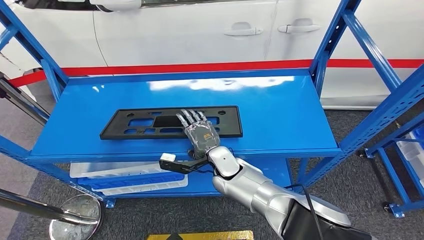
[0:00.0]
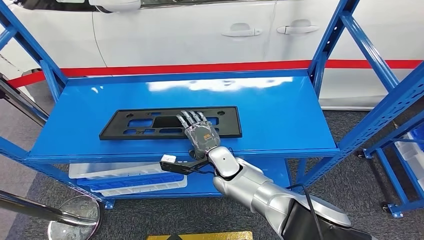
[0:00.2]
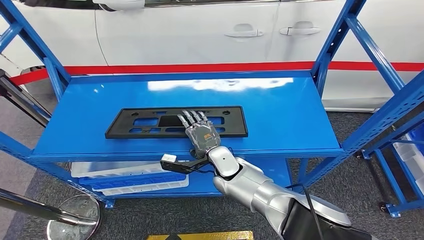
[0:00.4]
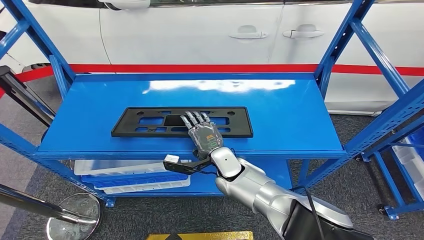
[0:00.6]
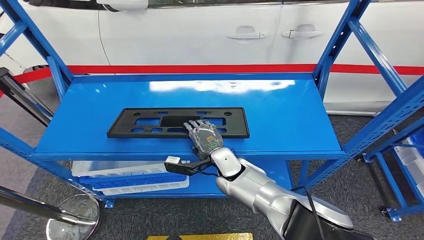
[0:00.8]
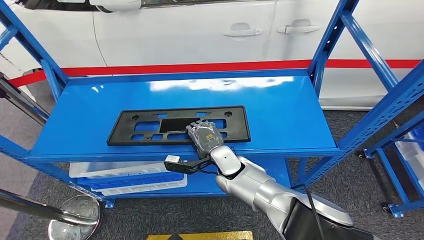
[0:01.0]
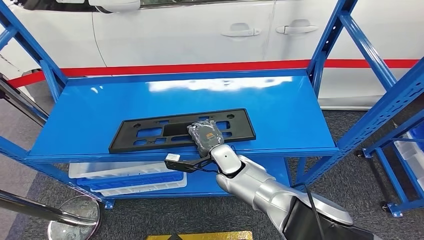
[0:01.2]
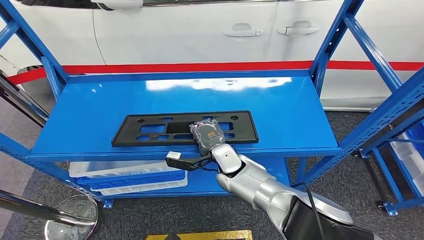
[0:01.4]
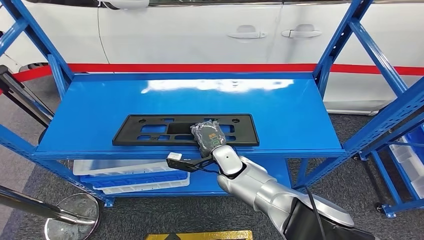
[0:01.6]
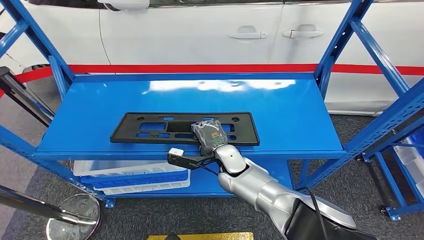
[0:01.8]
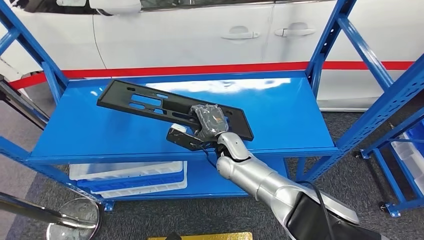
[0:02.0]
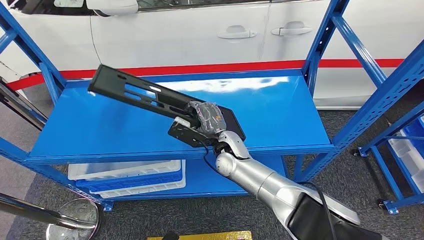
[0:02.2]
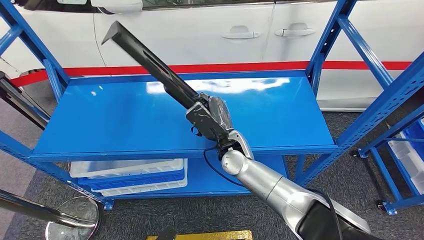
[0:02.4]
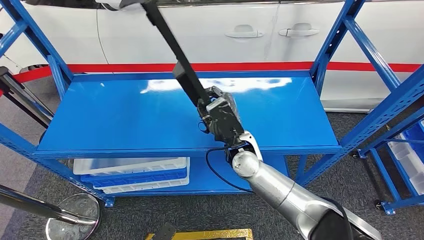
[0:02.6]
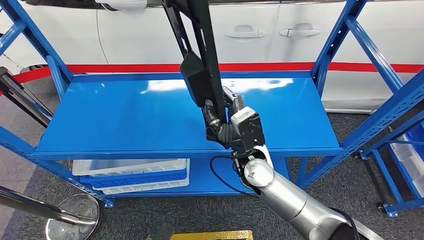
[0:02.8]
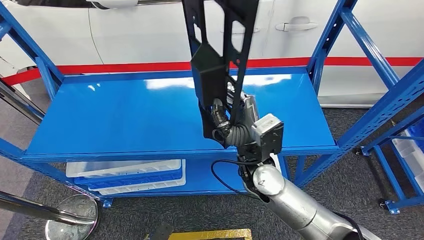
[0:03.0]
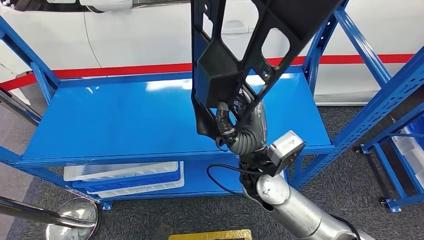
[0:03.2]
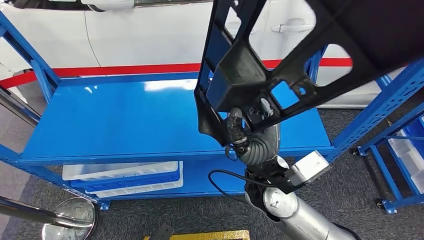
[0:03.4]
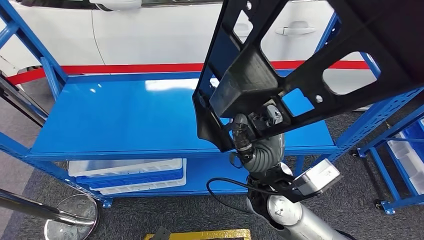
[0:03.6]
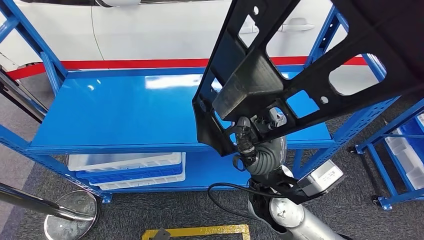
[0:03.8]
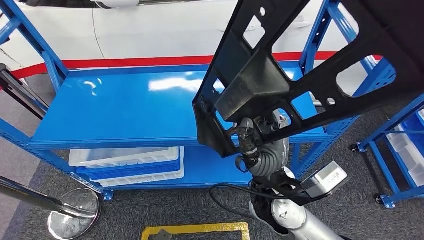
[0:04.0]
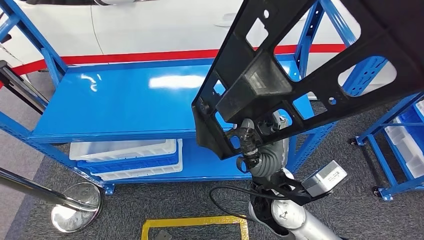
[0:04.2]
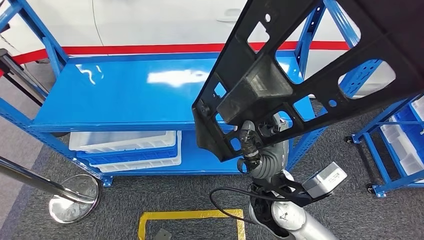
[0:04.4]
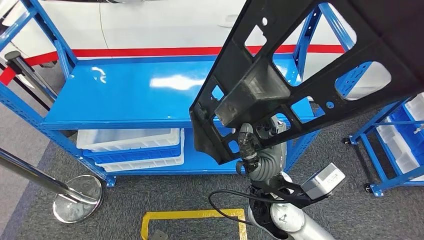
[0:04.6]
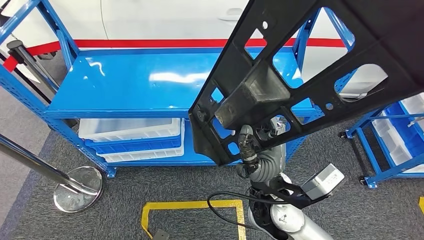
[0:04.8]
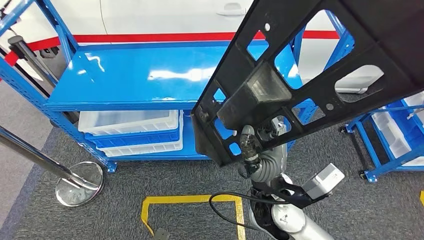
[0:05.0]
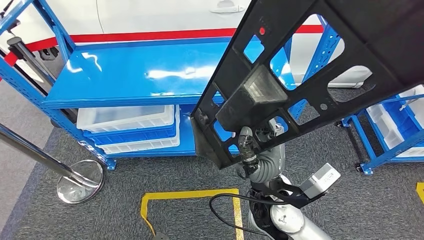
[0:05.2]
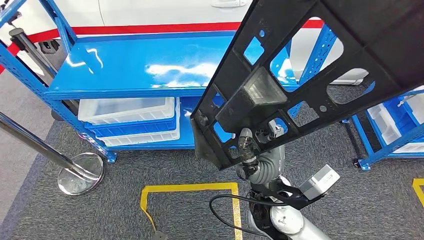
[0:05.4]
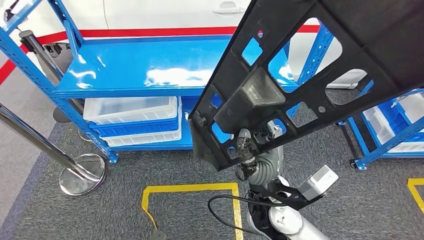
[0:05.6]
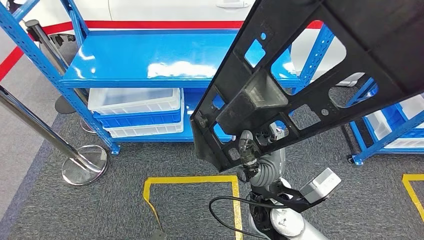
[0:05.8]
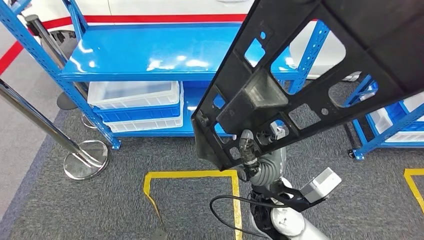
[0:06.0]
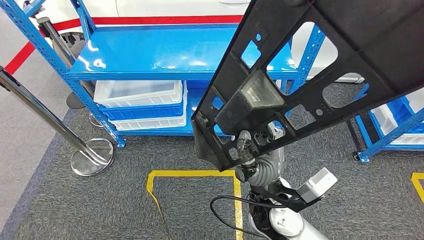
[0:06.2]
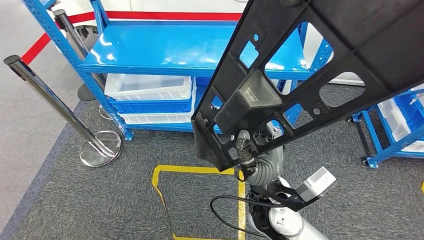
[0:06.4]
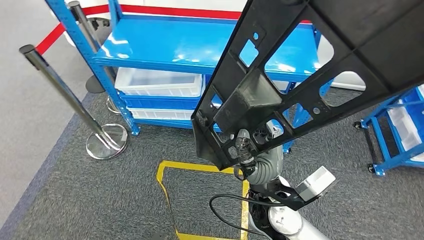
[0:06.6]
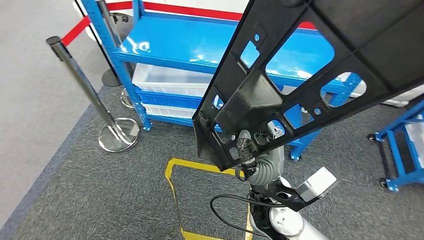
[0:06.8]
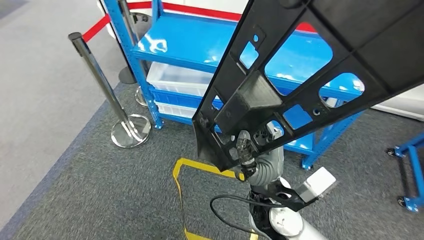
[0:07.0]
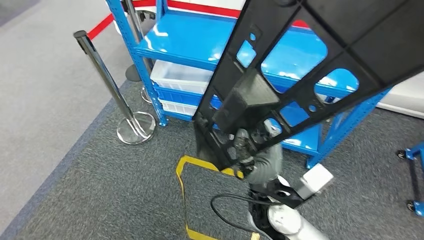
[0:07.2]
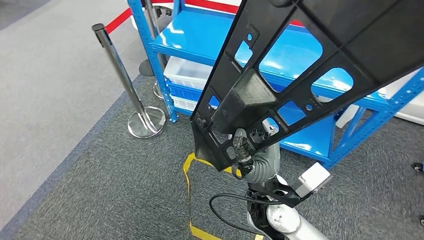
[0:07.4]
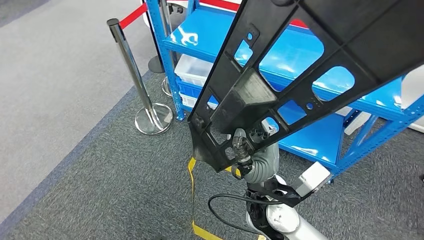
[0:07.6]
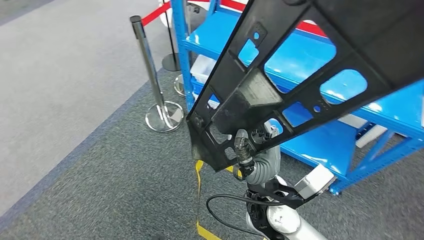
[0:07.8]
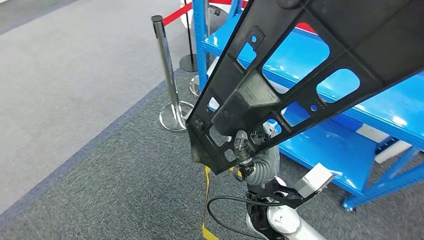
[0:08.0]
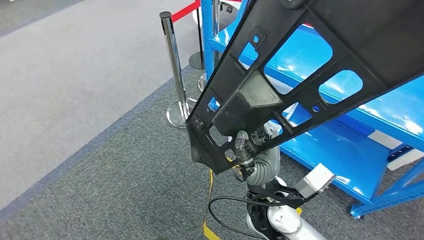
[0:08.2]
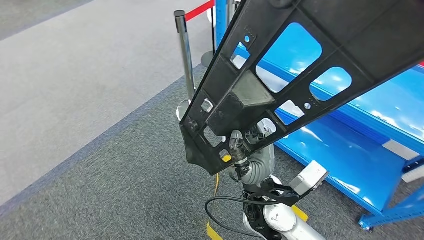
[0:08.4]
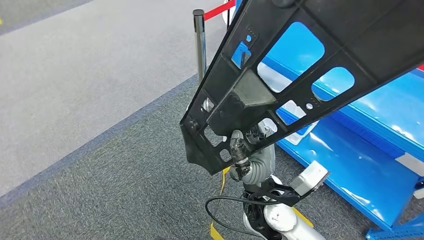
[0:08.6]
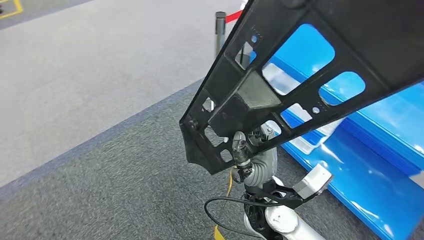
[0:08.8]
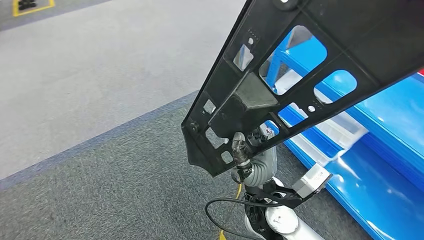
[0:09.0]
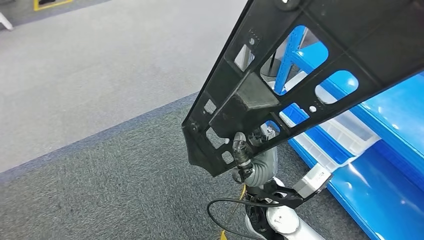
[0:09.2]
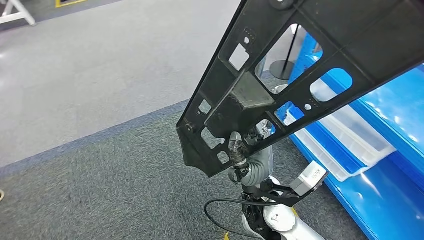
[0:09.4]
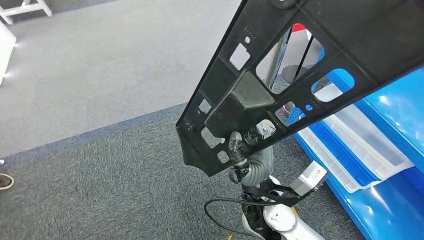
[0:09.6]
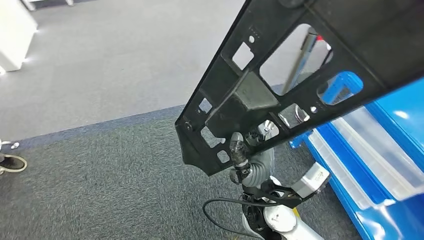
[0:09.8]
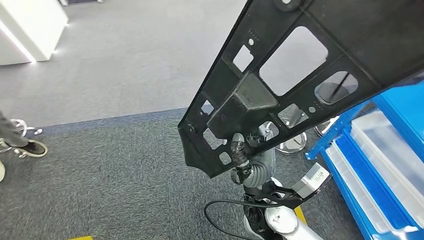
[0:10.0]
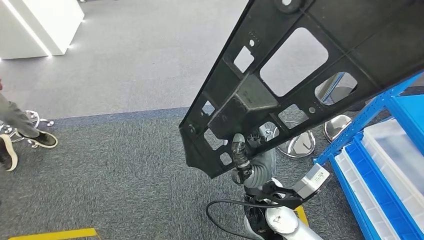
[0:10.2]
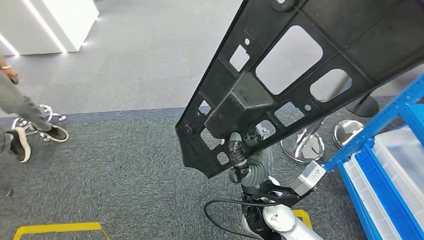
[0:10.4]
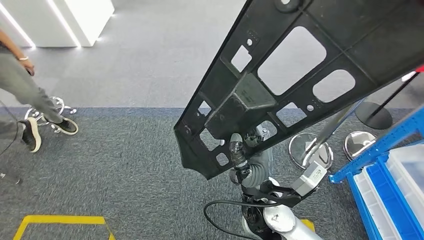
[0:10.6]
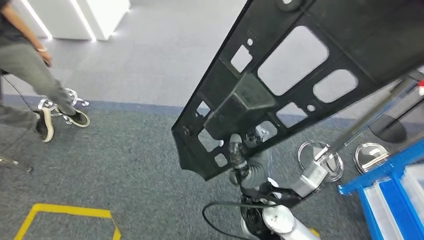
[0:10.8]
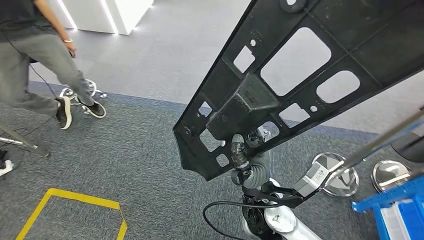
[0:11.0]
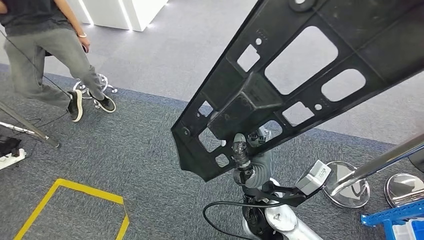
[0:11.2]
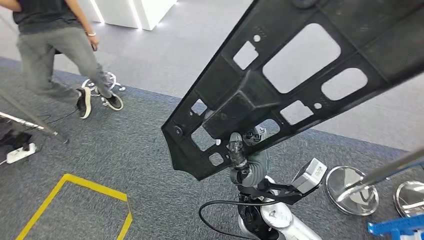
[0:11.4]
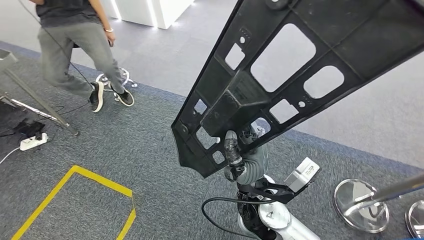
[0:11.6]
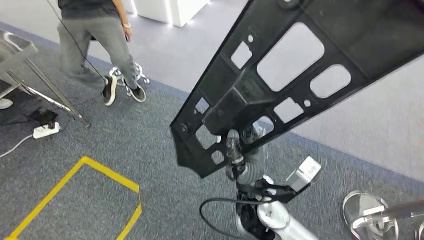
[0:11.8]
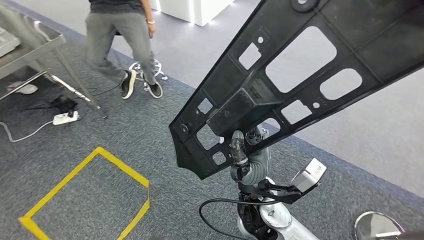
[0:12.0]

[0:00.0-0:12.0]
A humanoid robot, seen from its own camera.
Step, 0:00.0 to 0:04.6: Pick up the large material from the shelf.

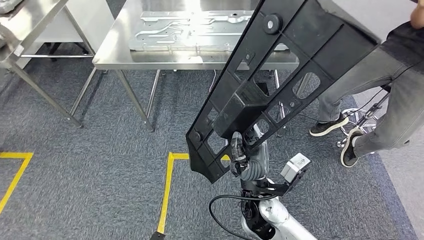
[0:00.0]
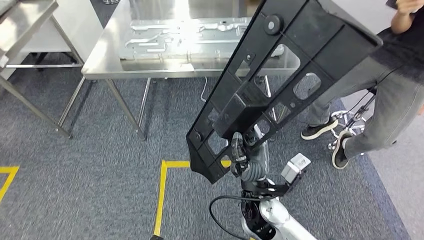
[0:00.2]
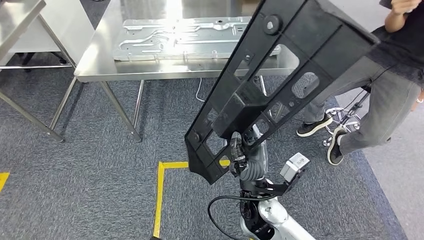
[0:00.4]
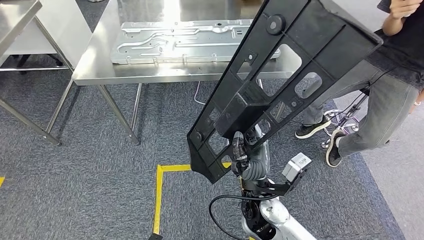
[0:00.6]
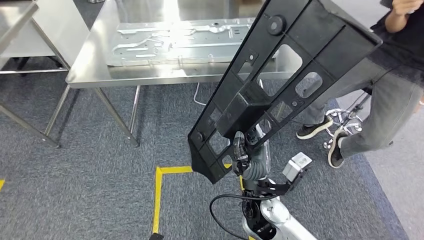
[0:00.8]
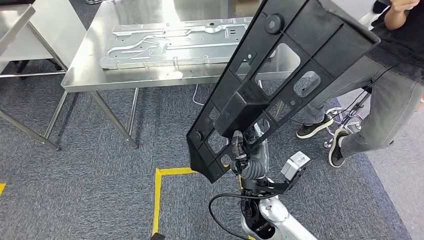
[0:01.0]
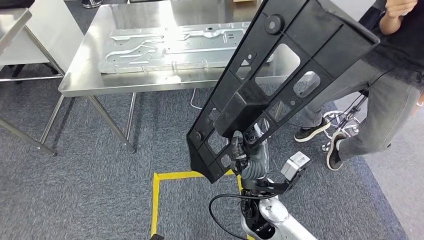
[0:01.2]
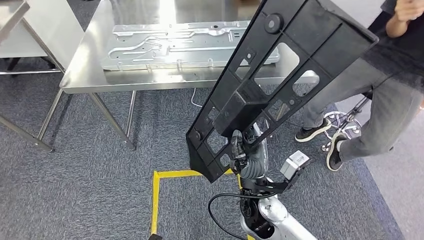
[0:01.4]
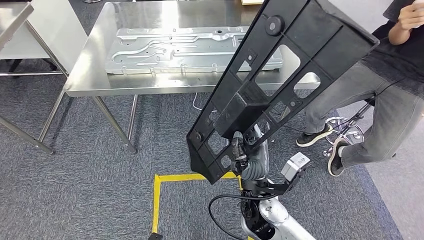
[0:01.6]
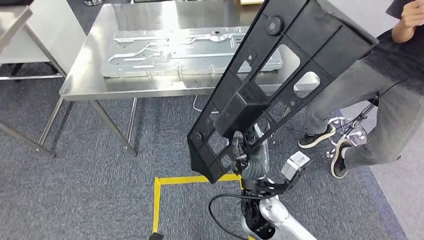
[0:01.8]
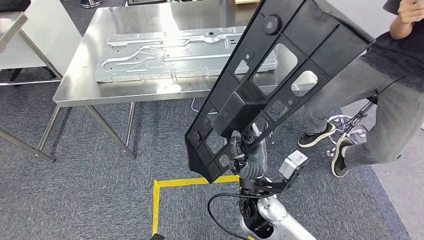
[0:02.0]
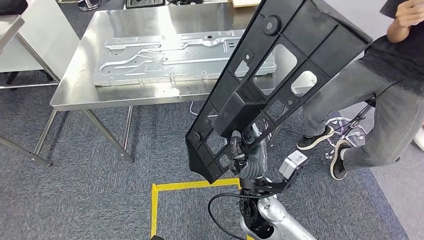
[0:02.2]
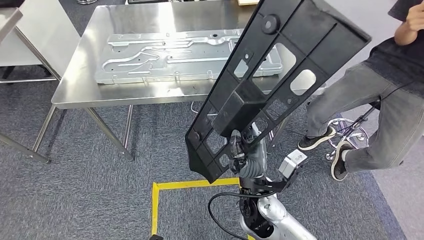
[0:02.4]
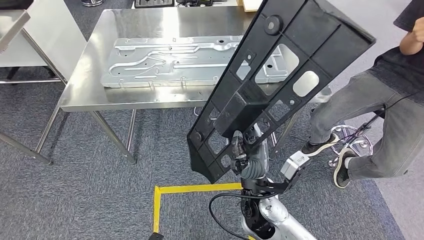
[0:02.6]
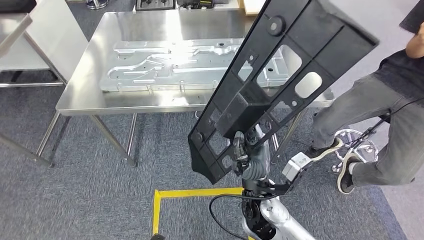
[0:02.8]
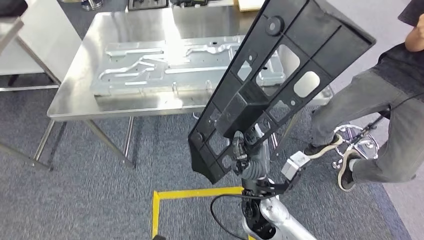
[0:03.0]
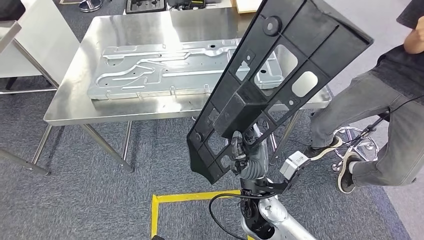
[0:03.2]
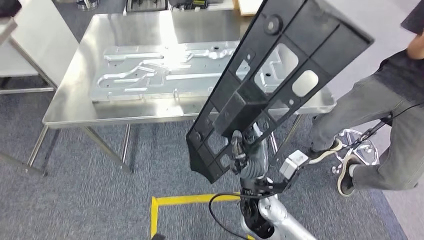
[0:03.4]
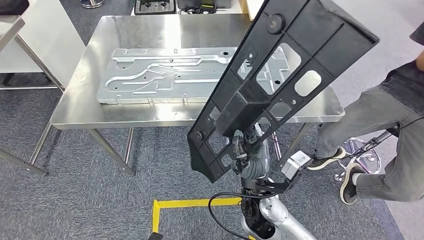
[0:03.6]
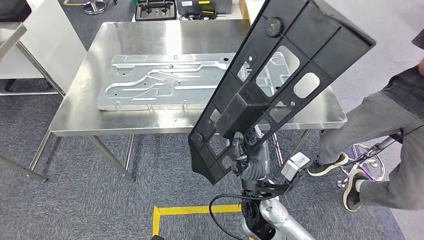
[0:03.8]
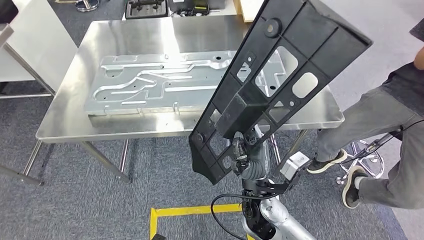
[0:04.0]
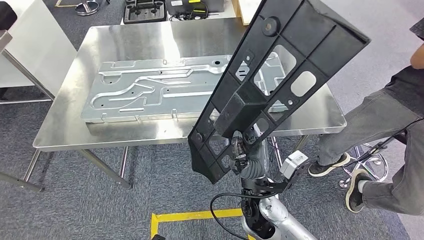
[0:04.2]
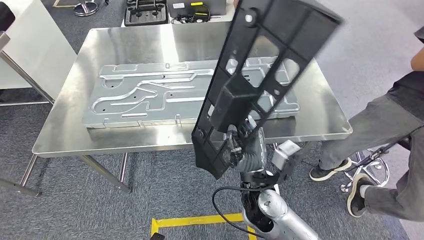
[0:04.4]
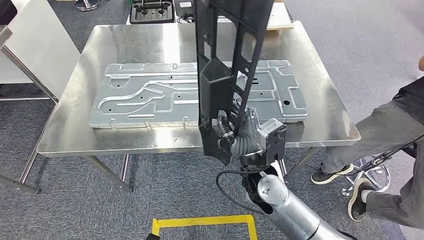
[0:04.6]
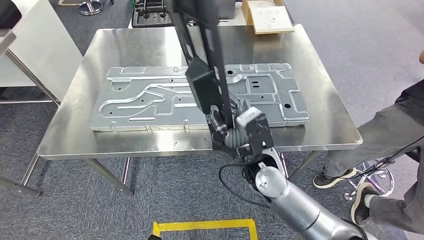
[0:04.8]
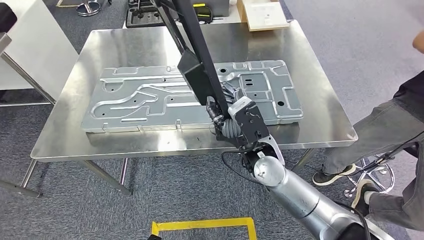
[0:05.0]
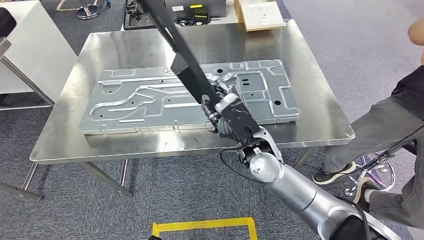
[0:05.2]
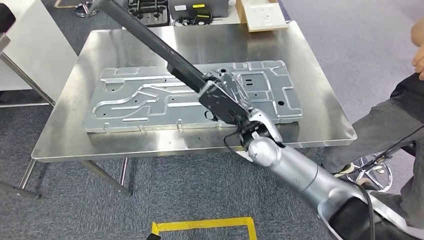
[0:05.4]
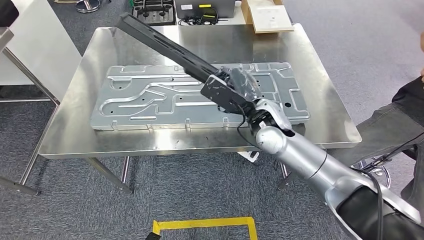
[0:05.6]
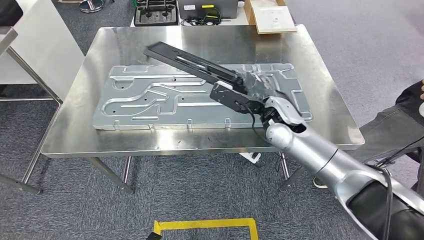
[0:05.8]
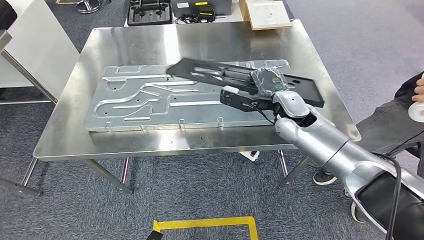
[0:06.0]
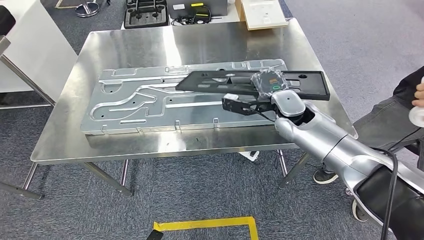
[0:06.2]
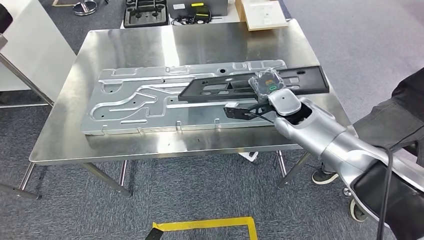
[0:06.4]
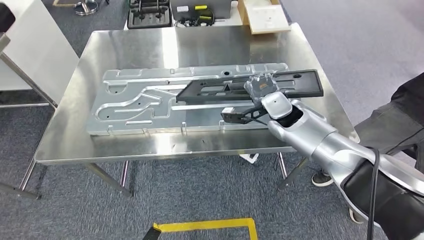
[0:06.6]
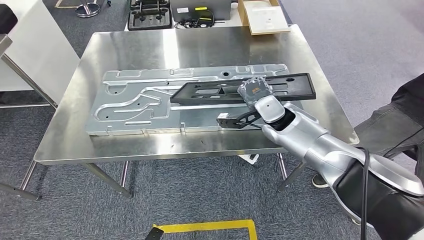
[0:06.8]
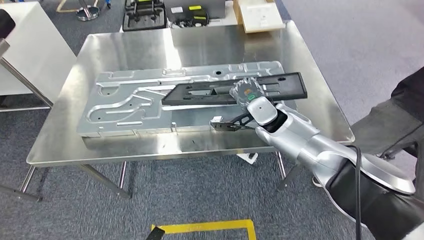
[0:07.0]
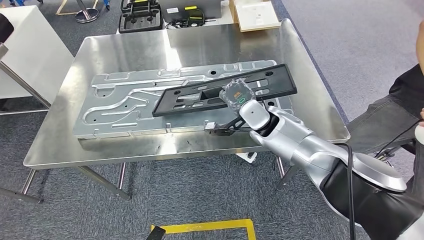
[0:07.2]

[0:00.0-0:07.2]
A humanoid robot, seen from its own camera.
Step, 0:00.0 to 0:03.4: Move the large material to the workbench.
